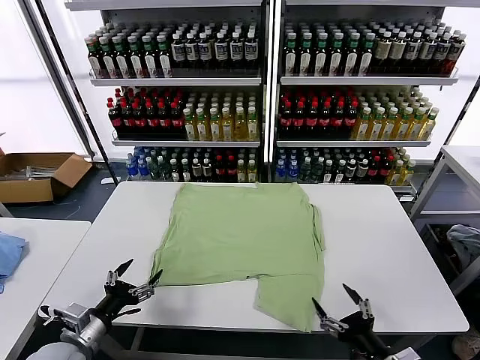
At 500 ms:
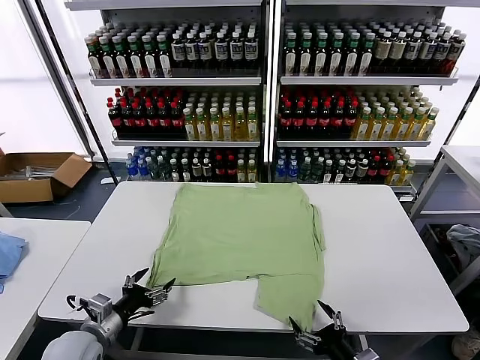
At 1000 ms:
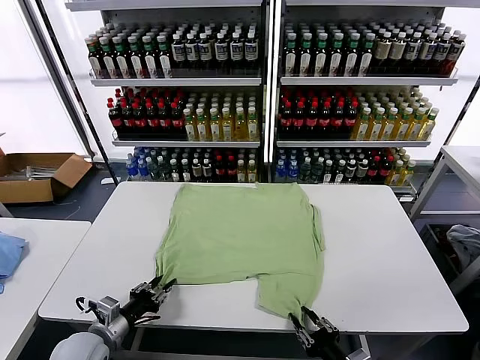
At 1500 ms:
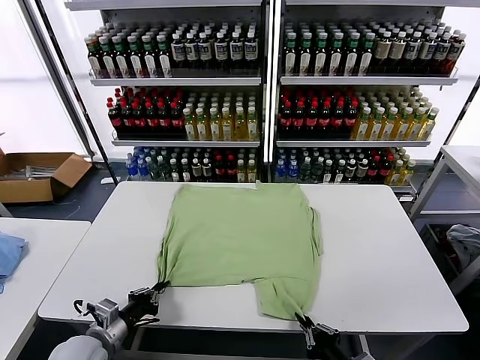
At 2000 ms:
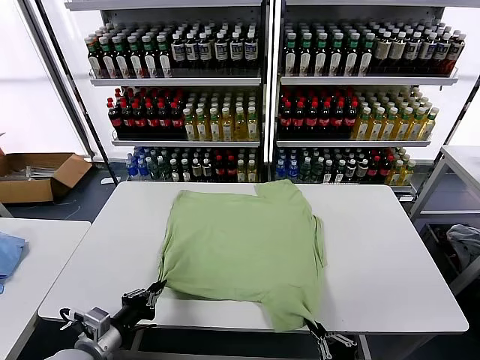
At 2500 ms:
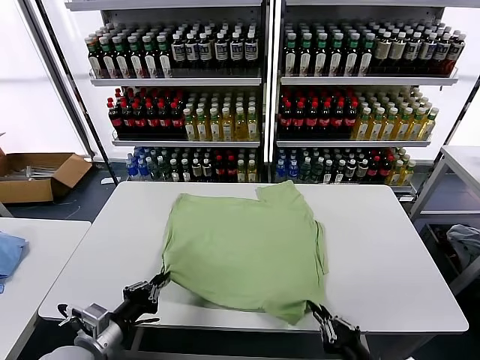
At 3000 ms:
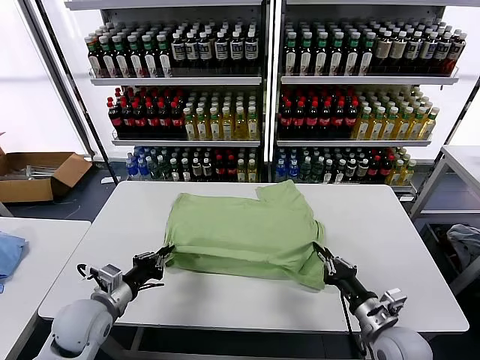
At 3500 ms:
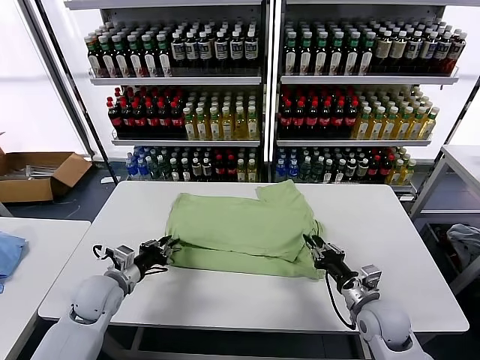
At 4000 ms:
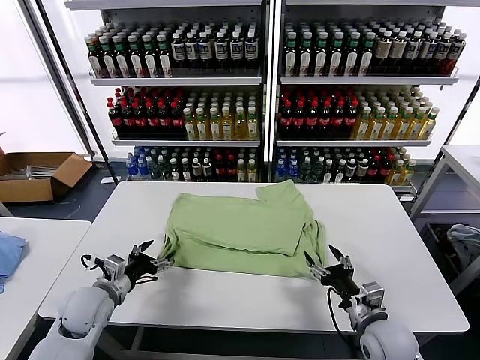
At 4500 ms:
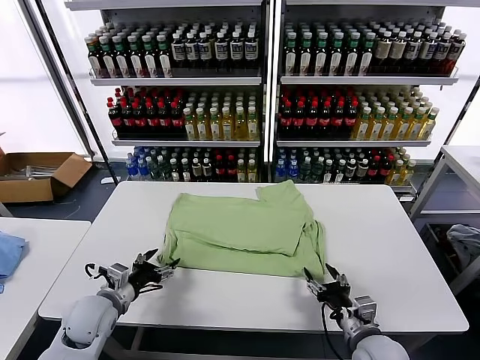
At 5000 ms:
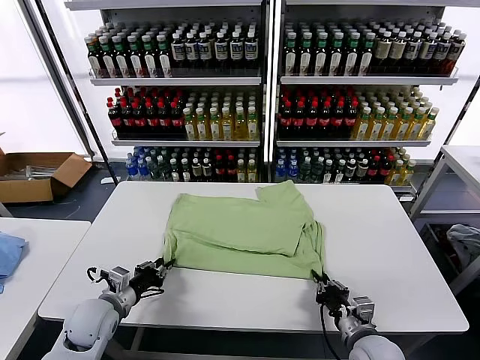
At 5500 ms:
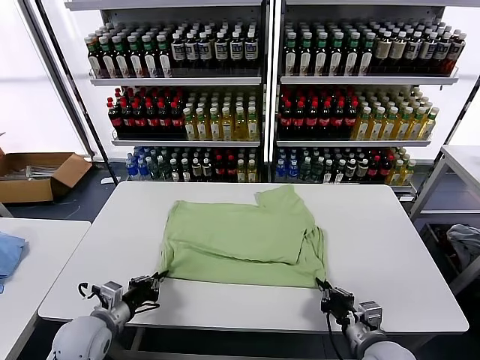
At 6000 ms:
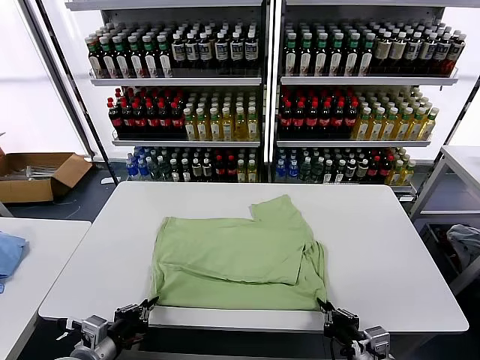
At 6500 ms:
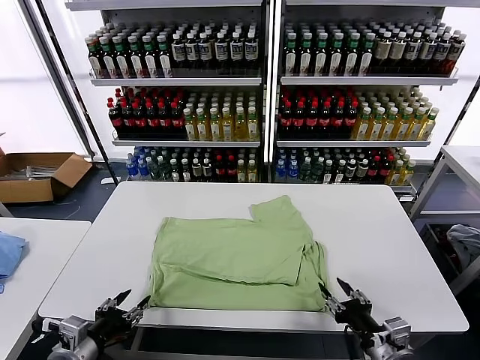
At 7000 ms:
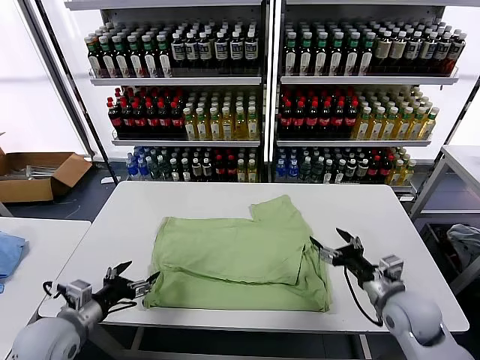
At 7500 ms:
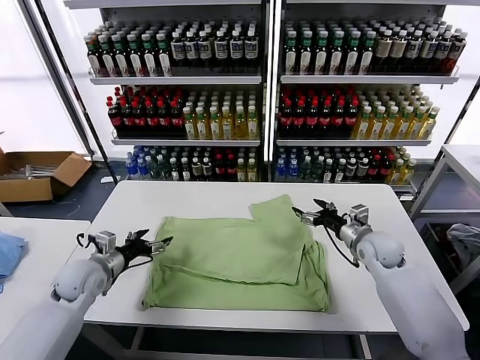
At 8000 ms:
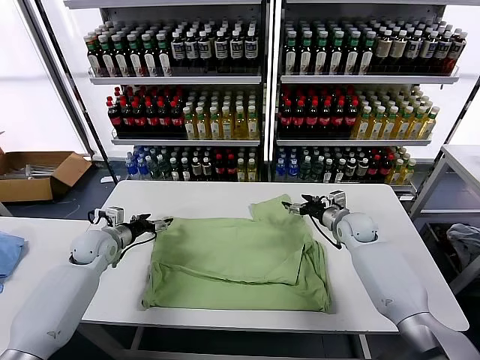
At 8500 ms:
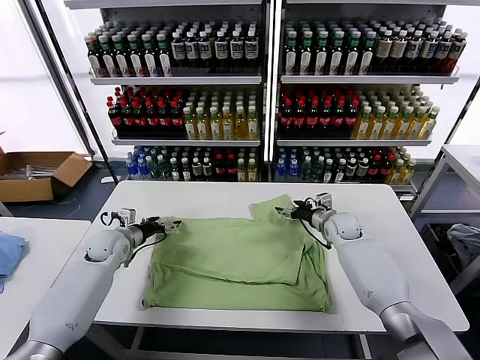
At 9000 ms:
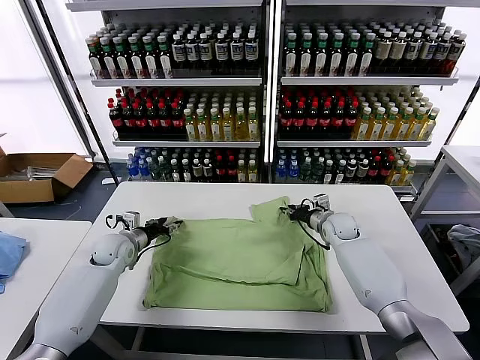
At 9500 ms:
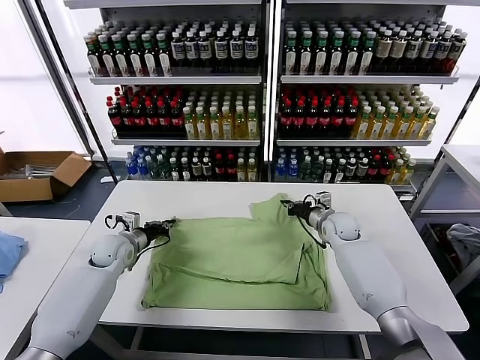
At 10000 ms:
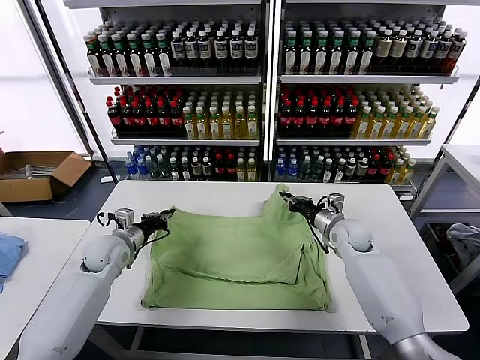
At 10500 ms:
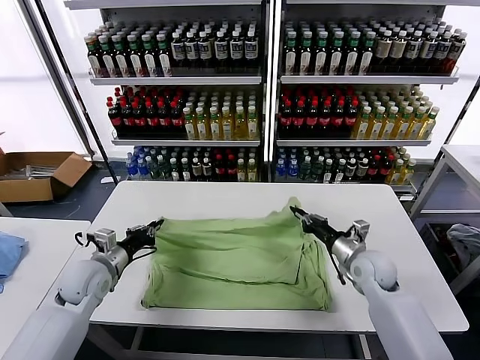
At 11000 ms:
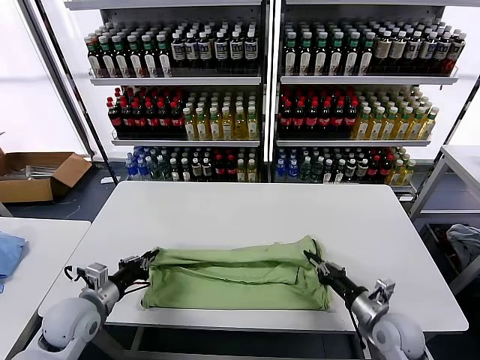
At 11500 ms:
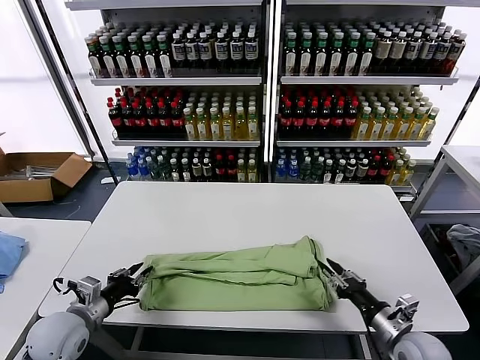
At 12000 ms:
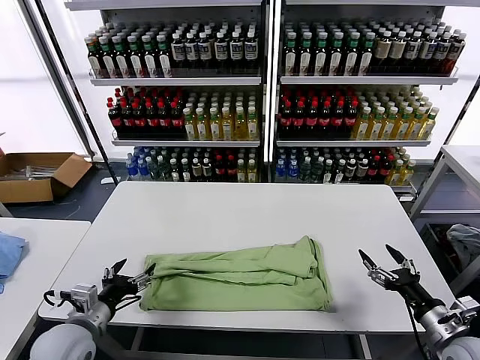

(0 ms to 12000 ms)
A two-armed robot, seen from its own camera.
Task of the whole recording: fold and organize the clothes.
Step, 0 ms - 1000 ms: use both grippers simultaneously to clamp the lower edge of the clothing fabric.
Step, 1500 ms - 3500 ms: use both grippers to drag the lower edge of the fabric forward and fold it over the upper edge.
Step, 4000 ms - 6000 ms: Drag the clothes downward with both gripper.
Step, 6500 ms - 9000 ms: use both grippers simultaneously to clamp the upper edge of the clothing fabric.
Step, 10000 ms - 11000 ms: use both grippers to drag the upper edge of the fabric backward and fold it over the lower edge.
2000 ms - 4000 ms: The grippers both shift forward by roughly 15 cm. The left gripper opens its fingers. Meanwhile the right gripper opens.
4000 ms - 6000 ms: The left gripper moves backward, roughly 15 cm, and closes, while the right gripper shifts approximately 10 cm backward, and closes its fingers.
6000 ms - 8000 ms: Both grippers travel together forward, roughly 35 cm. The left gripper opens up; the right gripper opens up.
8000 ms - 10000 ms: The right gripper goes about 5 cm backward, and closes up, while the left gripper closes its fingers.
10000 ms - 12000 ms: The right gripper travels backward and to the right by some 30 cm, and opens. The left gripper goes roughly 20 cm backward, and opens.

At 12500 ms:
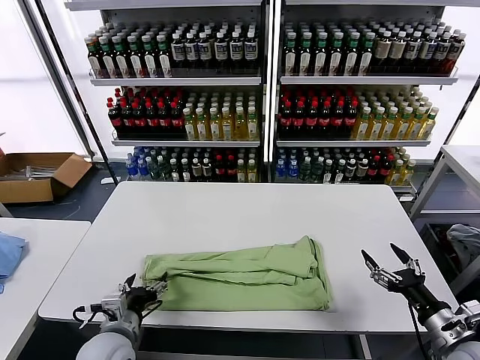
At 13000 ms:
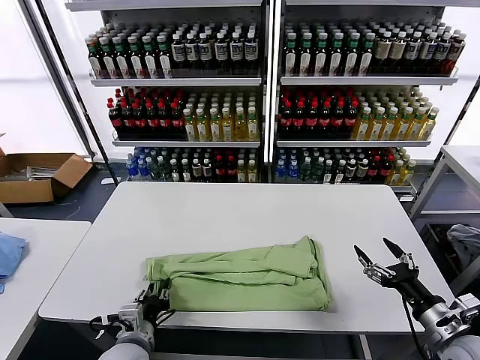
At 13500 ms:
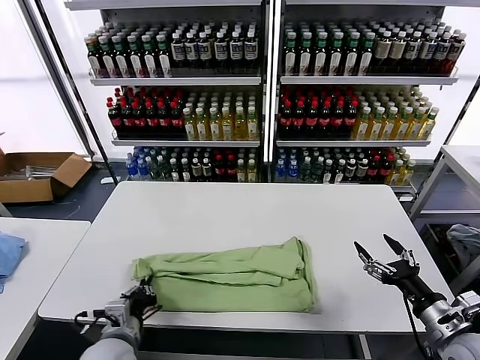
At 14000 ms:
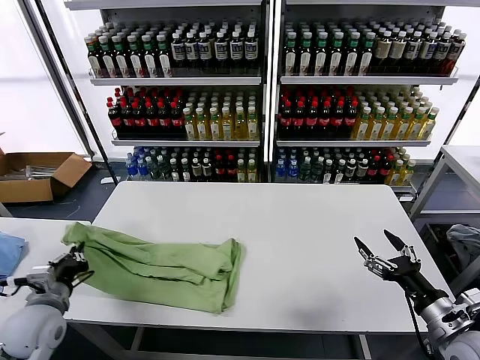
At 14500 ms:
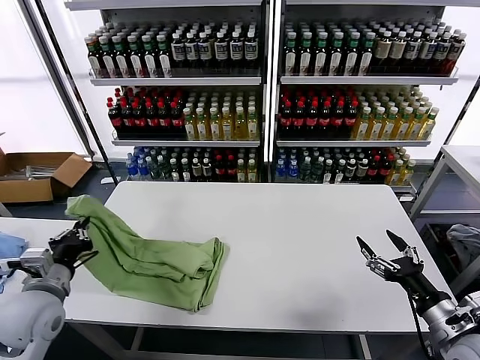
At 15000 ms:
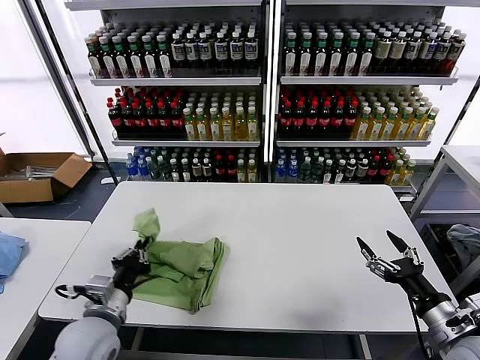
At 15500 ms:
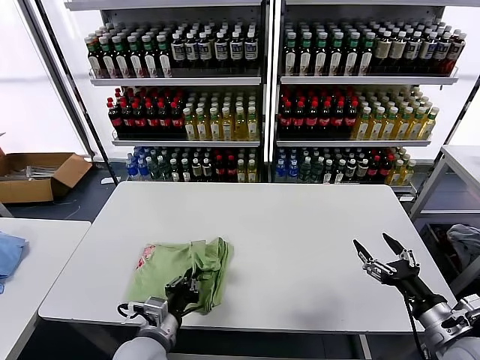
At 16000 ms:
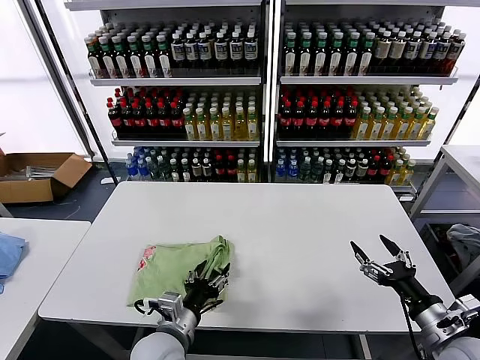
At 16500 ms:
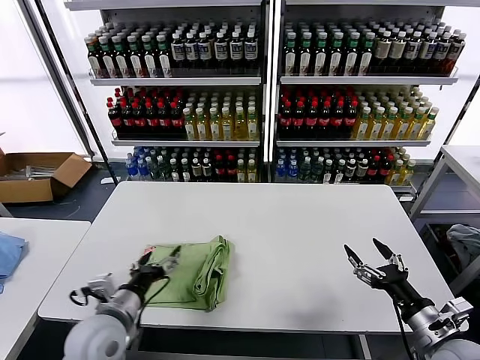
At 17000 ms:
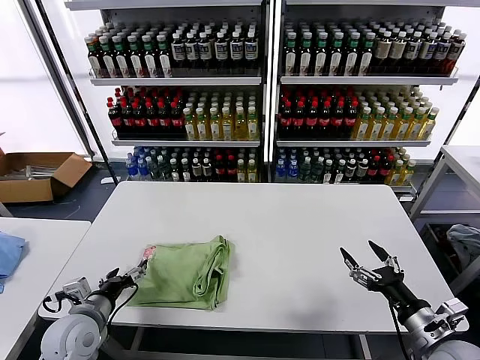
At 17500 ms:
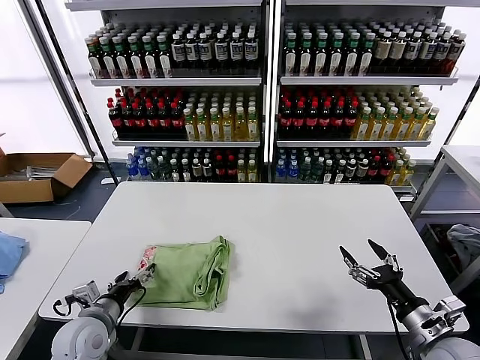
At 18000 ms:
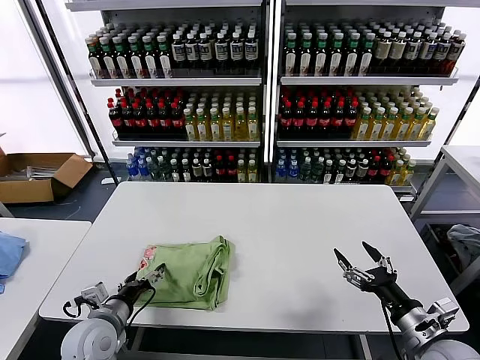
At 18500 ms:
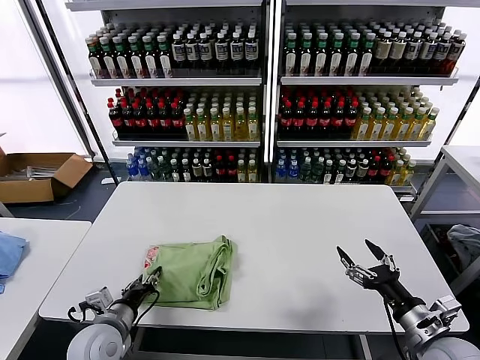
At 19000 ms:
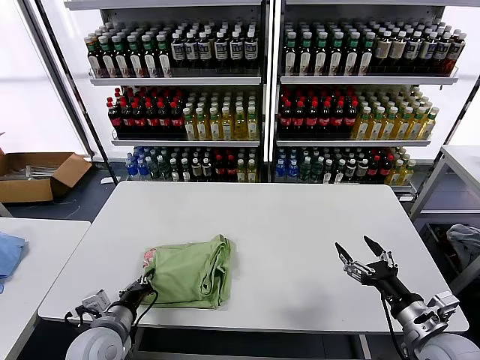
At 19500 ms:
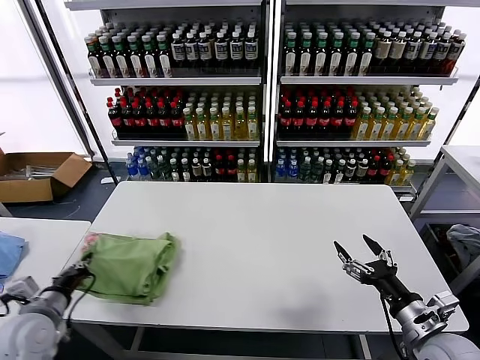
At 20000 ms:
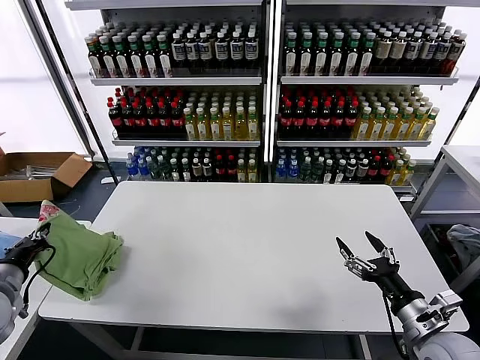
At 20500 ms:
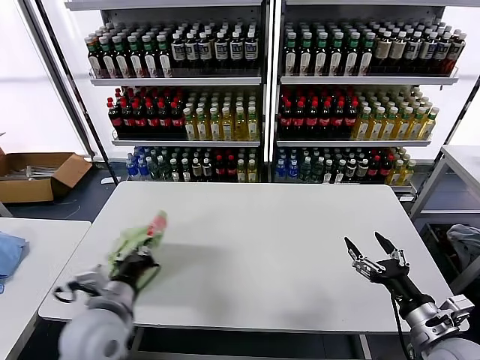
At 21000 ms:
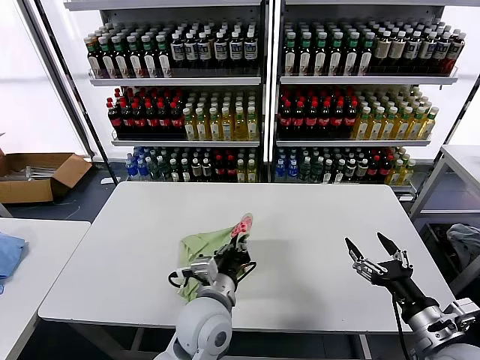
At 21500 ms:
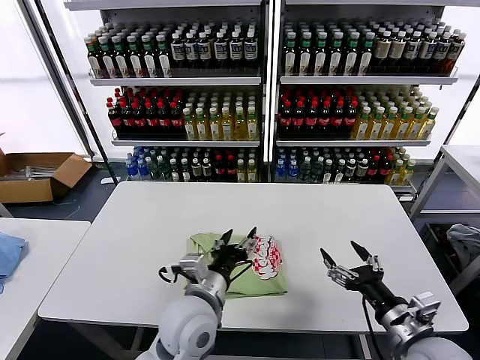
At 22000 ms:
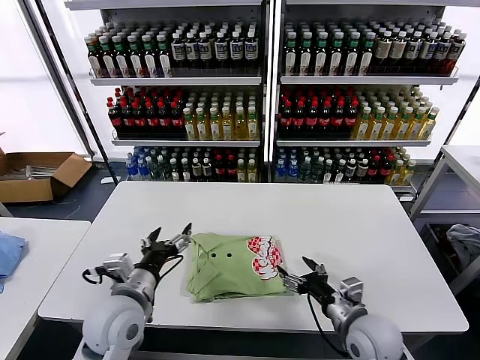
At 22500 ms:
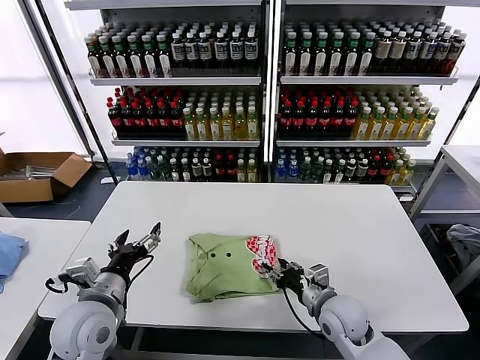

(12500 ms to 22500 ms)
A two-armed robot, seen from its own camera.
Task of the whole recording: fold and organize the clothes.
Step, 13500 ms - 16000 ms: use the left gripper to drag the left edge of the fabric to the left and folds it over the right edge.
Step, 16500 ms - 21000 ms: Flip the folded clothes over with left gripper.
12500 ms - 14500 ms: The left gripper shifts about 15 cm to the left and upward, and closes.
14500 ms - 16500 ms: The left gripper shifts approximately 15 cm to the right, and opens its fingers.
16500 ms - 18500 ms: The left gripper heads downward and to the left, covering roughly 10 cm, and closes its fingers.
18500 ms - 20500 ms: The left gripper travels upward by roughly 10 cm, reaches approximately 15 cm to the left, then returns, and closes.
20500 ms - 22500 ms: The left gripper reaches about 20 cm to the right, then returns, and opens up; the right gripper heads to the left, forward and downward, covering about 20 cm, and closes its fingers.

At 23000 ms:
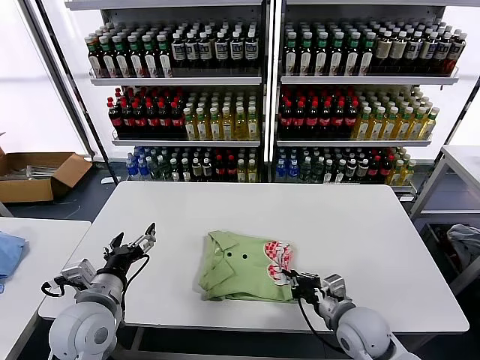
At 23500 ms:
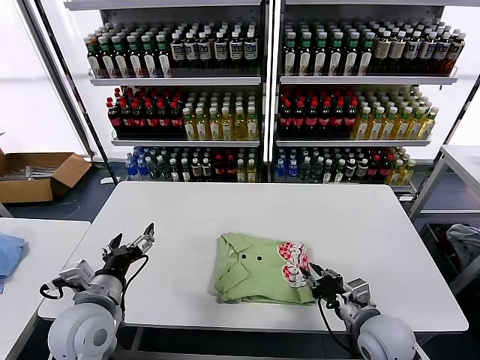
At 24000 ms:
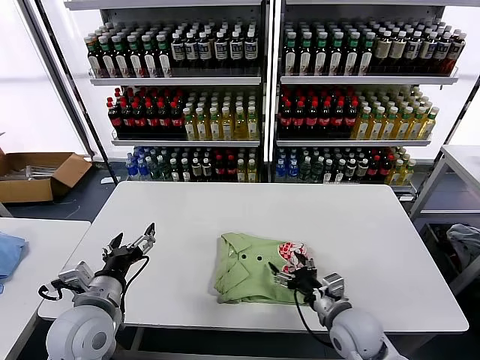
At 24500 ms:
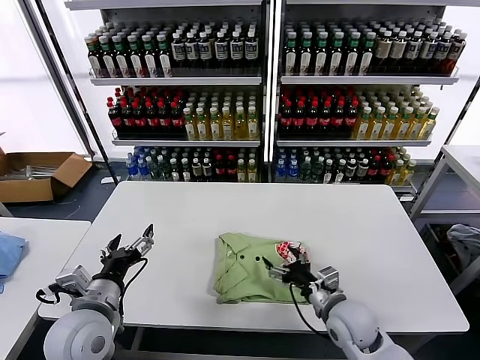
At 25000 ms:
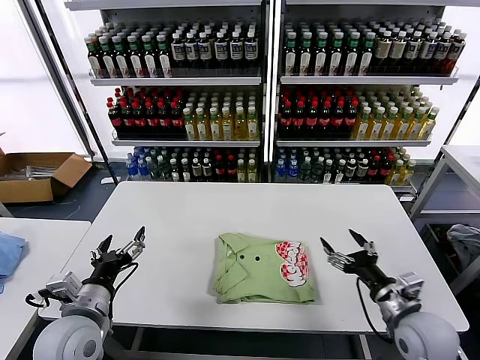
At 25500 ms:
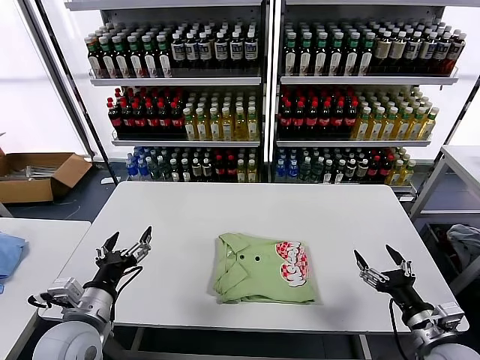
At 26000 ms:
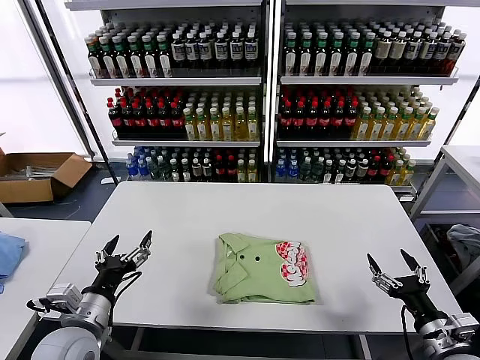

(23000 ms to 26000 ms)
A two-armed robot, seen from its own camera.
Task of the whole recording: fold and organize the clothes.
23000 ms - 24500 ms: The right gripper opens its fingers.
24500 ms - 26000 ms: The right gripper travels to the right and backward by about 20 cm.
